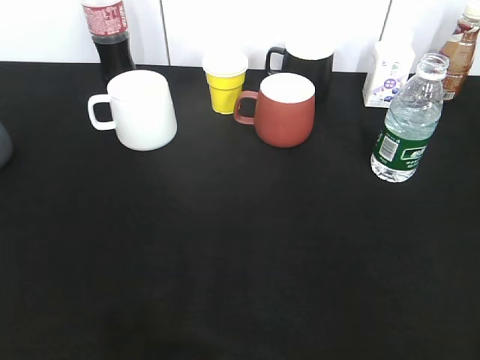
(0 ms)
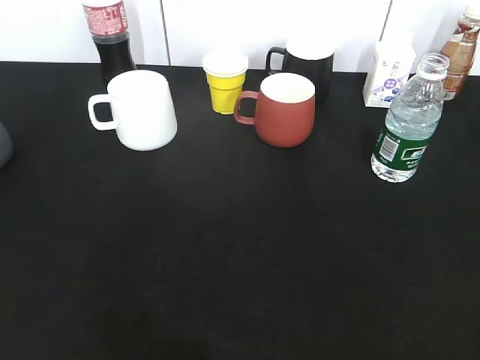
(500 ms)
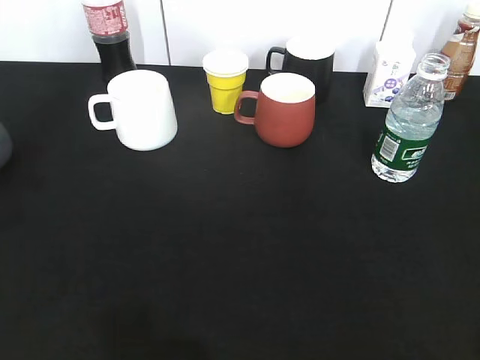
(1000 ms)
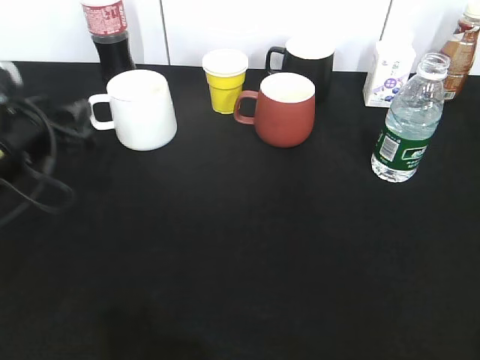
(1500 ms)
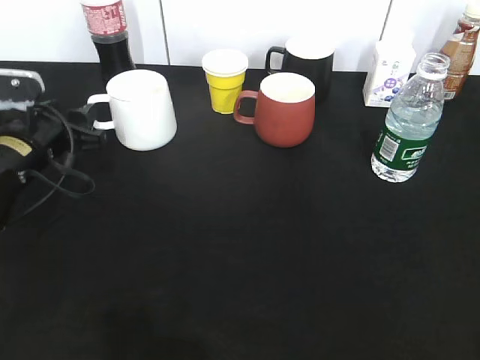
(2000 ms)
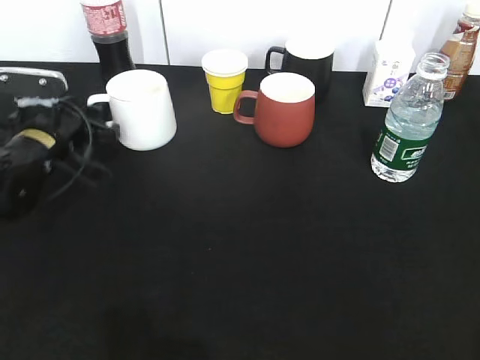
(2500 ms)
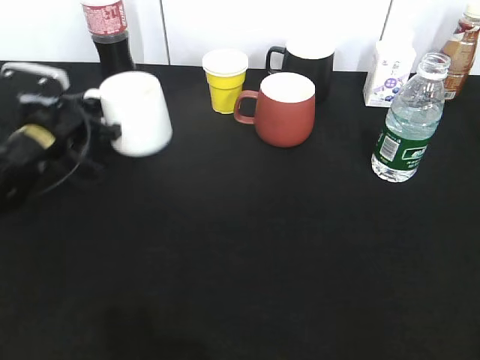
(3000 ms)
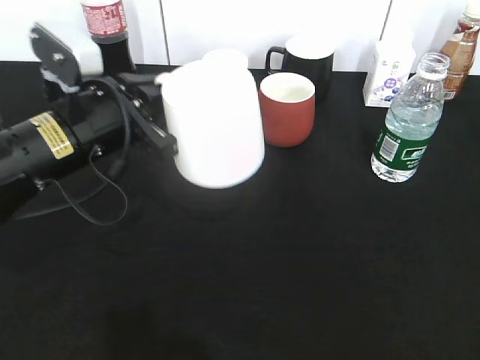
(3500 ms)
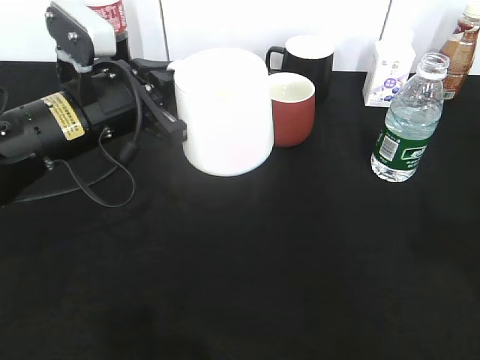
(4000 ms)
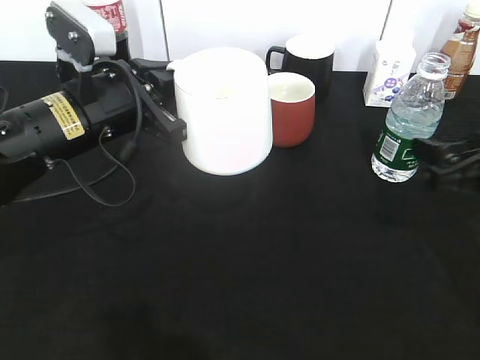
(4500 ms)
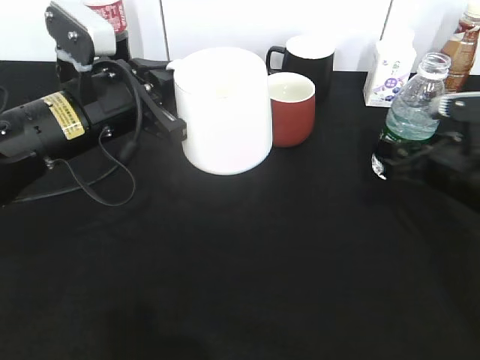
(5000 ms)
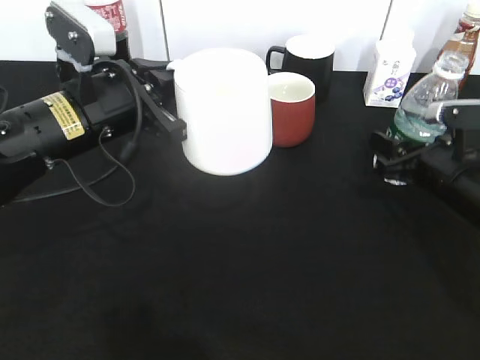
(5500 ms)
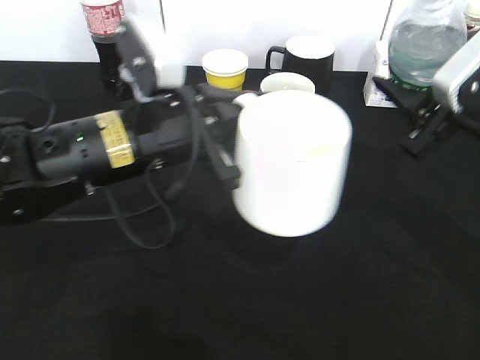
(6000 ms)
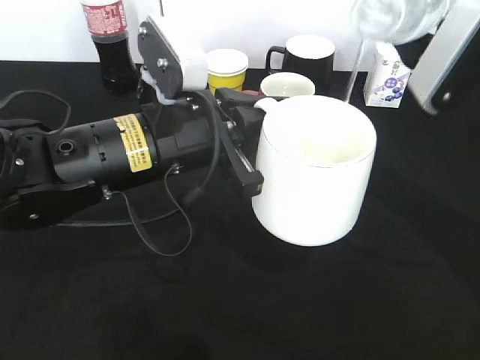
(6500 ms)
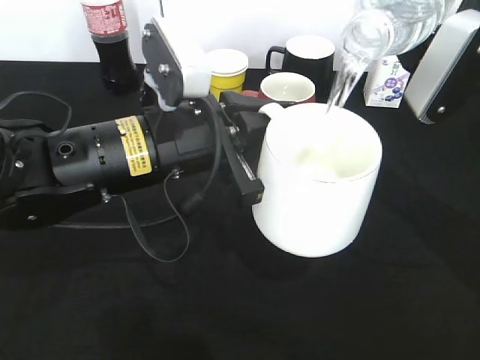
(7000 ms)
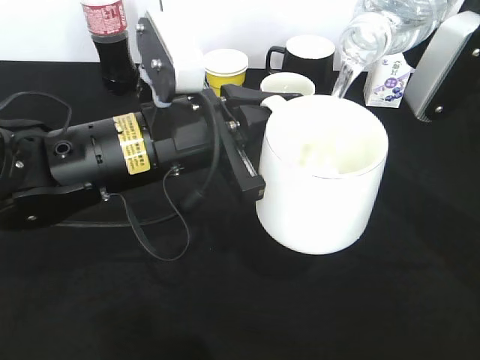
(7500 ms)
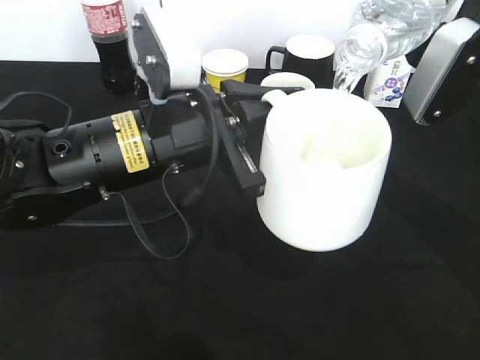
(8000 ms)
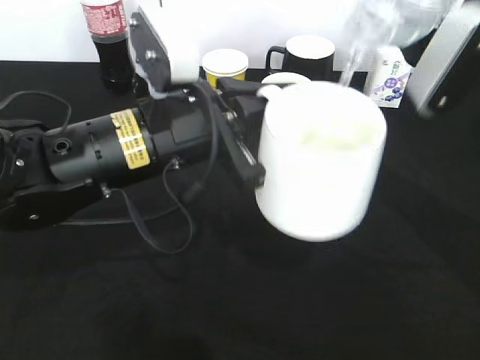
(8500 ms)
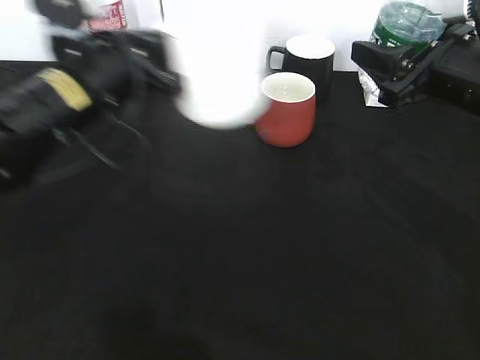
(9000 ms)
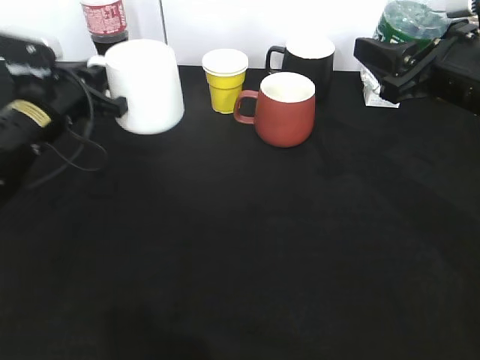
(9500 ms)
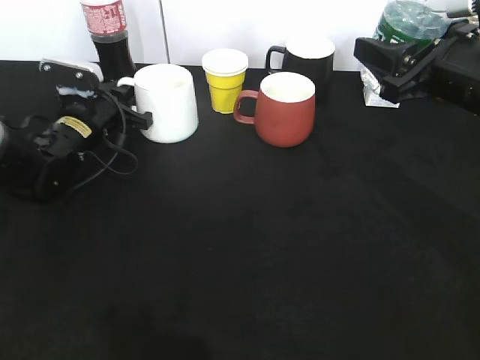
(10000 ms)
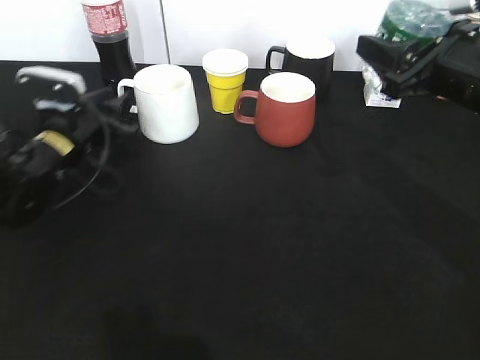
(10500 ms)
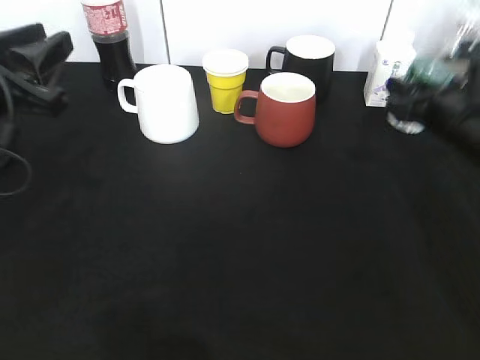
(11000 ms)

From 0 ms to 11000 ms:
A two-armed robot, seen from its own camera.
Step, from 0 ms to 2500 ms: Grasp the white cup with left gripper.
Step, from 3000 ms to 3500 ms: Lift the white cup with left gripper.
Step, from 4000 ms to 5000 ms: Grasp the bottle with water with right gripper.
Step, from 5500 ms to 8500 ms: Pour the water from bottle to cup with right gripper.
Step, from 9000 ms to 10500 ms: Place the white cup on the table with left gripper.
From 0 ms to 2000 ms: The left gripper moves forward and downward, some 35 cm, and opens its fingers.
From 2000 ms to 3500 ms: The left gripper travels to the right and upward by about 10 cm, and closes.
From 3500 ms to 5500 ms: The right gripper is displaced forward and downward by some 35 cm, and closes up.
From 5500 ms to 7500 ms: The right gripper moves upward, approximately 15 cm, while the left gripper shifts some 10 cm to the right and backward.
From 7500 ms to 9000 ms: The left gripper moves to the left and forward, some 10 cm. Meanwhile the right gripper moves roughly 5 cm.
From 9000 ms to 11000 ms: The left gripper heads to the left and backward, covering some 10 cm, and opens up. The right gripper heads downward, covering some 10 cm.

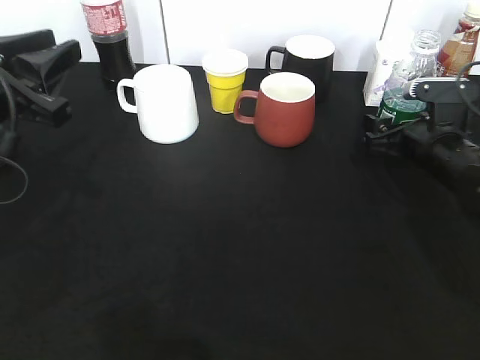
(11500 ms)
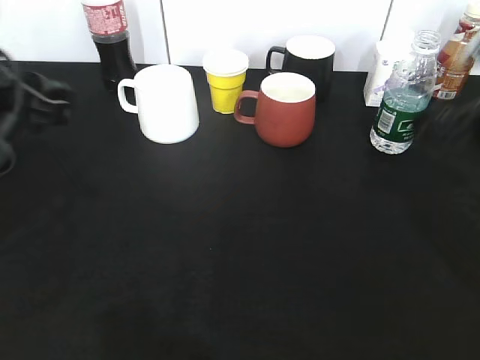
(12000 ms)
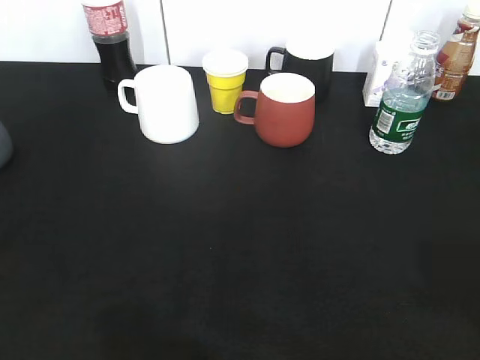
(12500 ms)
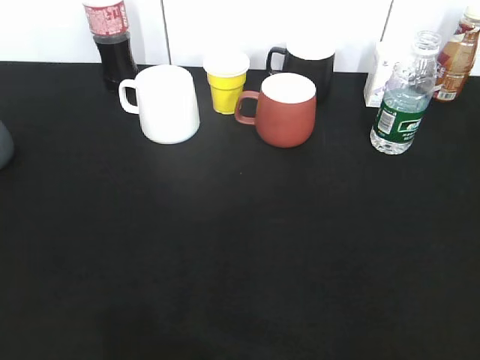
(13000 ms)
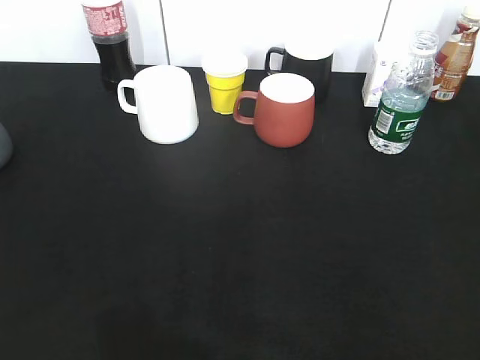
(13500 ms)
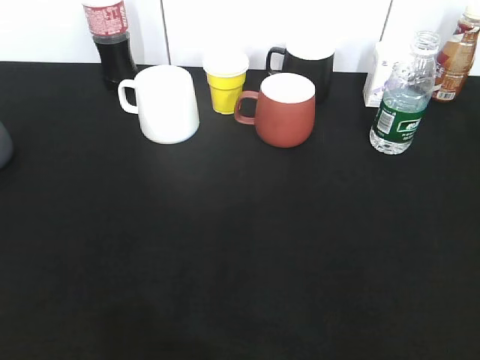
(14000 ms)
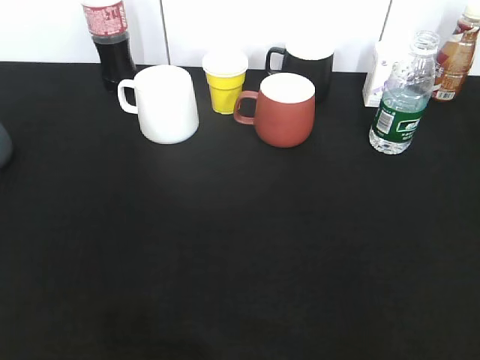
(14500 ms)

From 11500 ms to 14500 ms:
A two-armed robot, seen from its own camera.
From 11500 ms to 13000 ms: The right gripper shifts approximately 40 cm backward and upward, and closes its fingers. The left gripper shifts approximately 25 cm backward.
